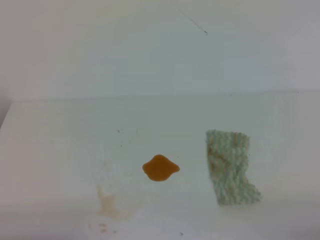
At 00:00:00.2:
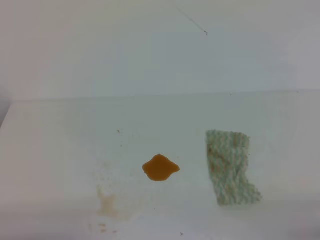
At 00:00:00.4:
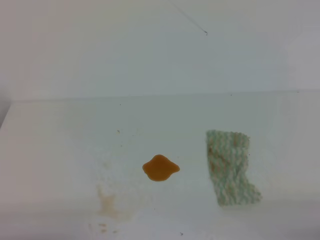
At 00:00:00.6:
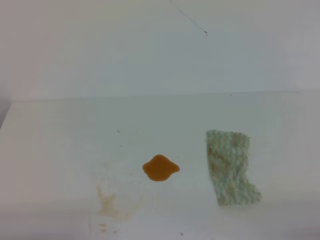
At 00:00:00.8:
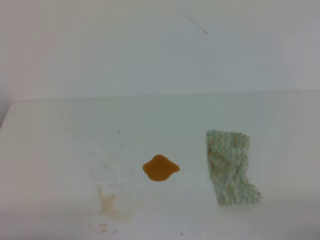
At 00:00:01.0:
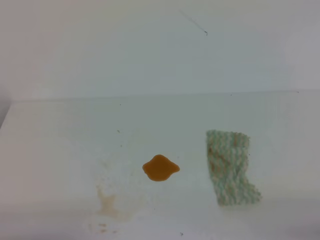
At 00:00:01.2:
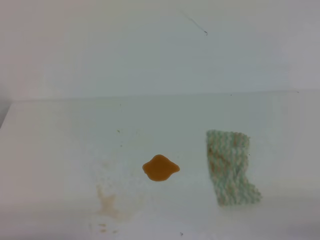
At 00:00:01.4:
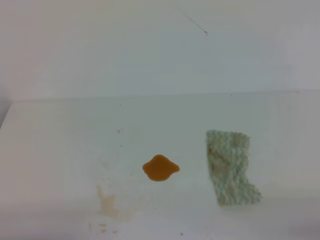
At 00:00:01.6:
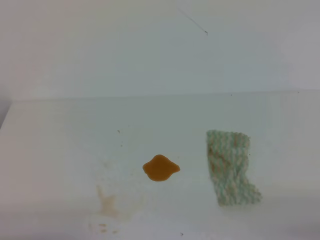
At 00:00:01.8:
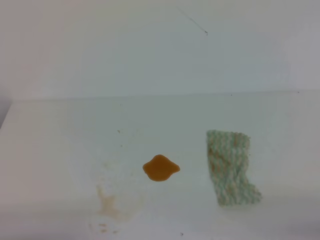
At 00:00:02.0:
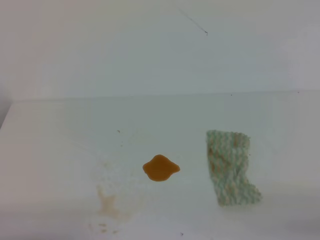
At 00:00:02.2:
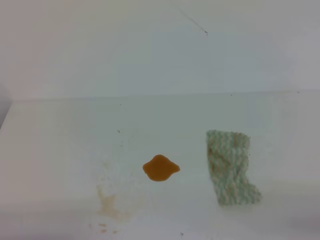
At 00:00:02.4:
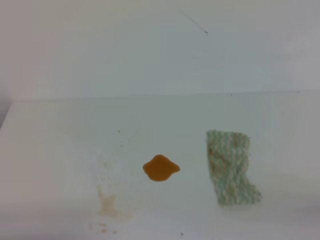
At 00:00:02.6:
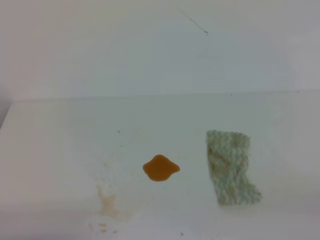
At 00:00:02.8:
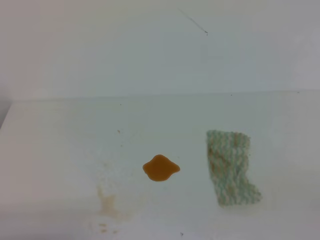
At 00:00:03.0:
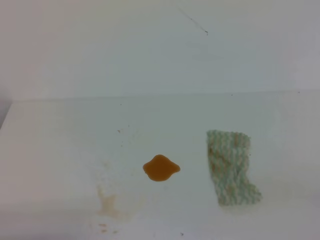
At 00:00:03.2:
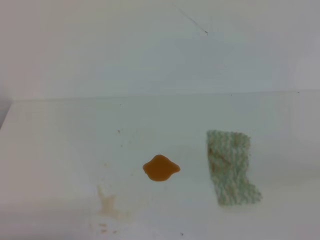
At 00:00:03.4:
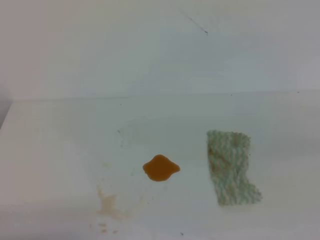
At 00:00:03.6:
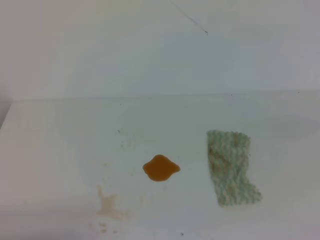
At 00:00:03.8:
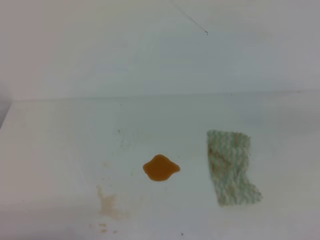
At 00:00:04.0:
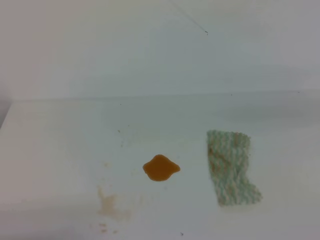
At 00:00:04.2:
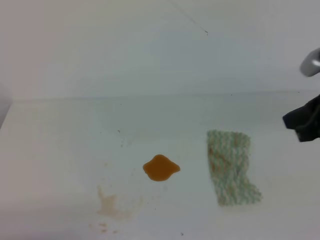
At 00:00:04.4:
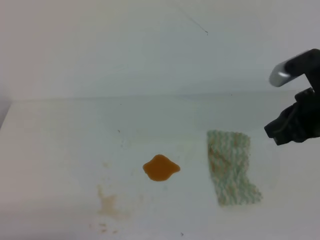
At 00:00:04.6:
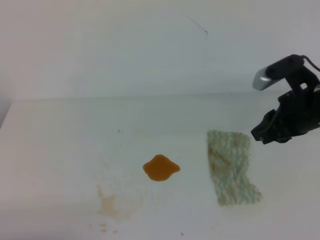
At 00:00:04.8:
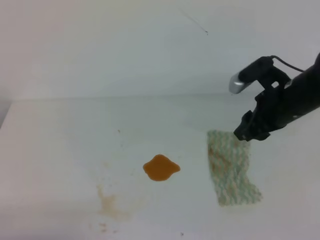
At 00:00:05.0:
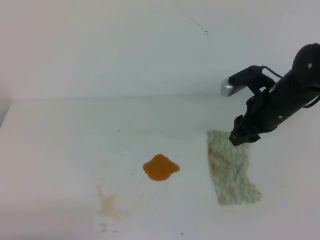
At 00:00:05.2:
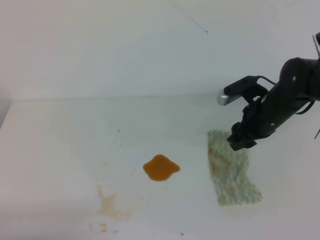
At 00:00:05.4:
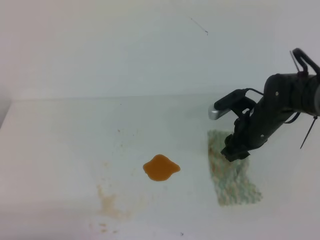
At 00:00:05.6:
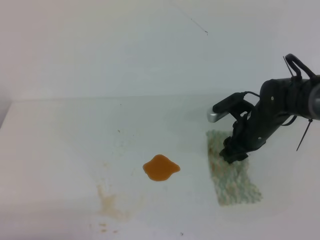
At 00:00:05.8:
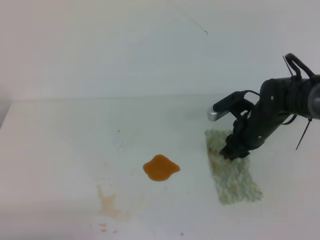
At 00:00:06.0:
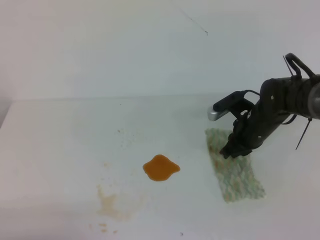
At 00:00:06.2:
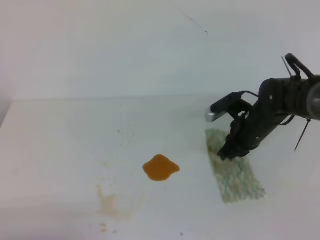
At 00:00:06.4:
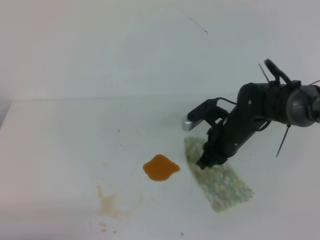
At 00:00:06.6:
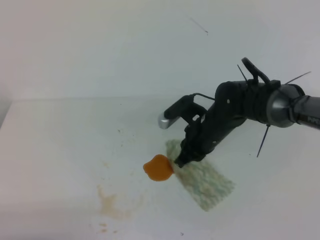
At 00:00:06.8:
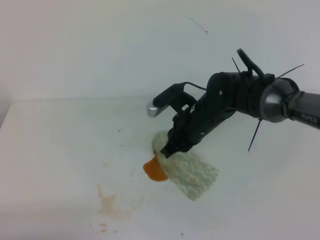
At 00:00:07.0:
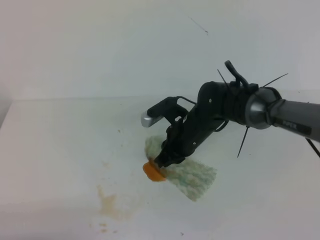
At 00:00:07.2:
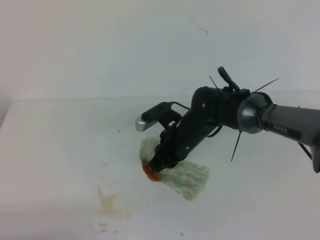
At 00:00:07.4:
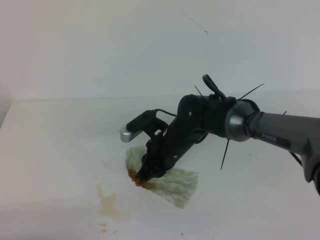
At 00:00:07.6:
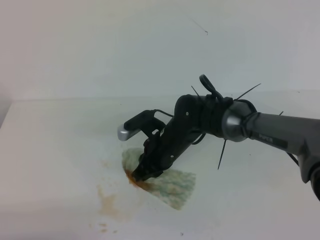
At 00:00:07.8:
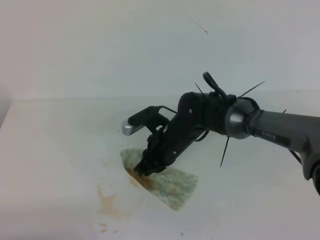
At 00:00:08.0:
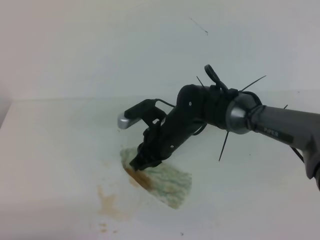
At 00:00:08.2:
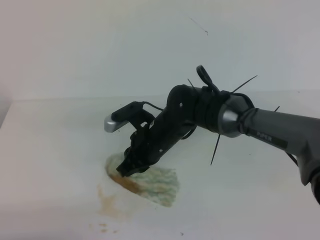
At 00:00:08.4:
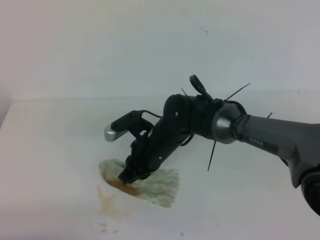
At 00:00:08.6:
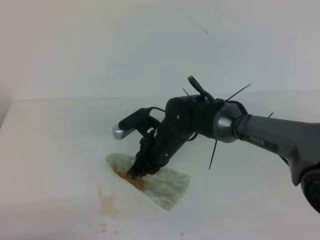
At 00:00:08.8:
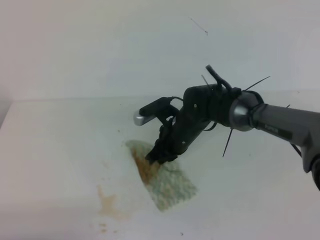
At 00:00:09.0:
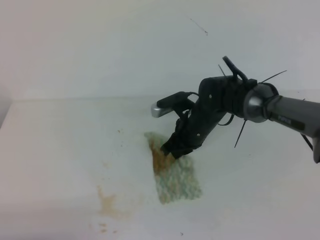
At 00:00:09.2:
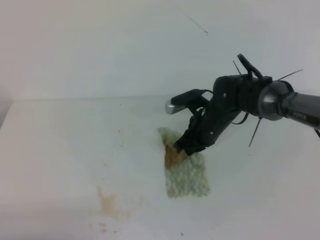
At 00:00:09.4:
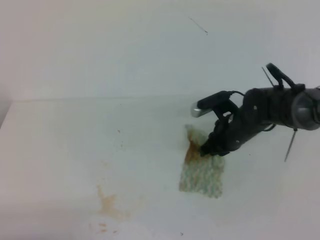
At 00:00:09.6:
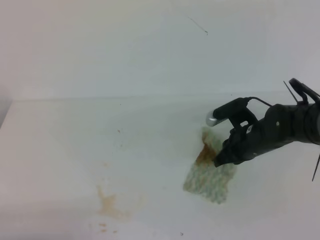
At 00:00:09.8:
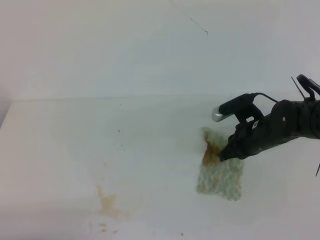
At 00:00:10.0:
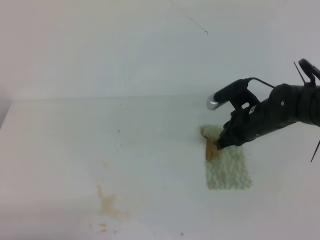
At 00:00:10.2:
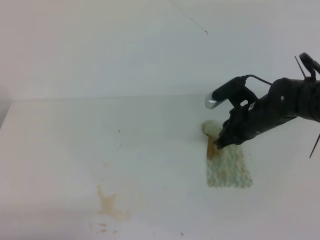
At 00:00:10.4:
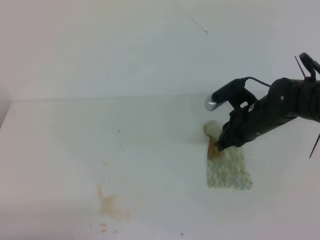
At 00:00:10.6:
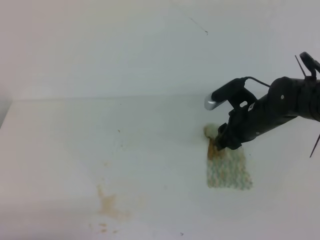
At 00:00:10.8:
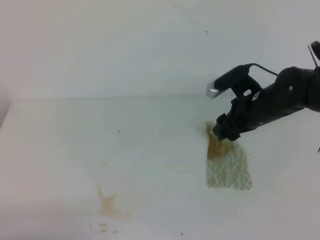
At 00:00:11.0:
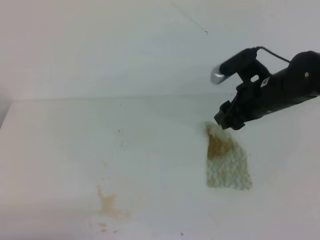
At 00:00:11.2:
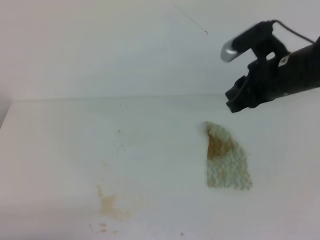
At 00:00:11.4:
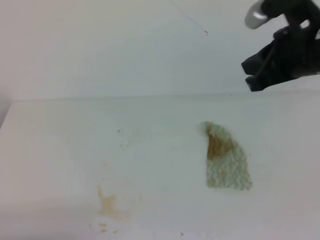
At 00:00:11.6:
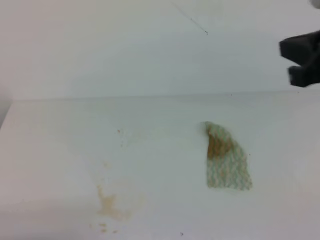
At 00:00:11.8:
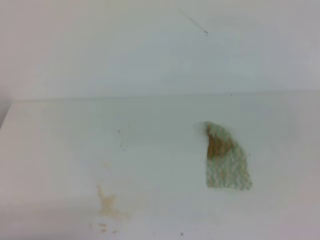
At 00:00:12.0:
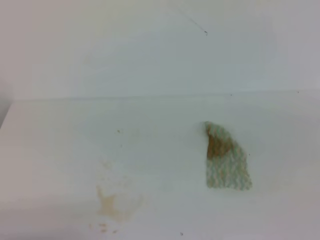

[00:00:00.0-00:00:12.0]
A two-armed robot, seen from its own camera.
00:00:00.0 to 00:00:01.6: Both grippers stay about where they are.
00:00:03.0 to 00:00:04.4: The right gripper travels forward and to the left by some 25 cm.
00:00:04.4 to 00:00:06.0: The right gripper shifts approximately 20 cm downward, forward and to the left, and opens, then closes once more.
00:00:06.0 to 00:00:07.6: The right gripper is displaced to the left by roughly 15 cm.
00:00:07.6 to 00:00:09.0: The right gripper goes approximately 5 cm to the right.
00:00:09.0 to 00:00:10.4: The right gripper is displaced to the right by some 10 cm.
00:00:10.4 to 00:00:12.0: The right gripper heads backward, upward and to the right, covering about 35 cm, and opens, then closes once more.

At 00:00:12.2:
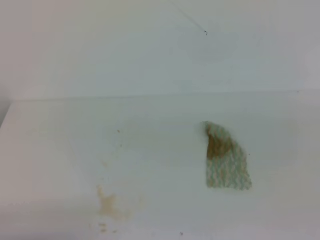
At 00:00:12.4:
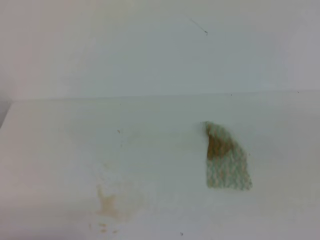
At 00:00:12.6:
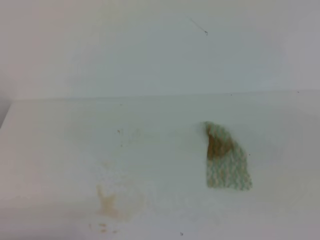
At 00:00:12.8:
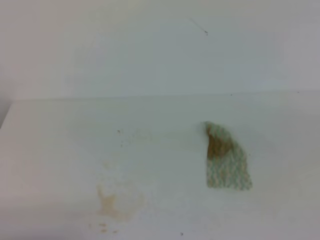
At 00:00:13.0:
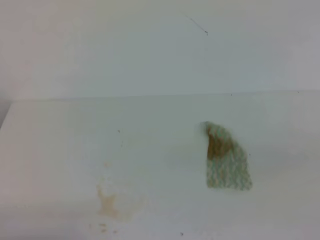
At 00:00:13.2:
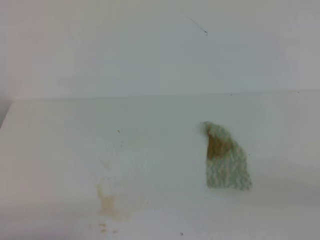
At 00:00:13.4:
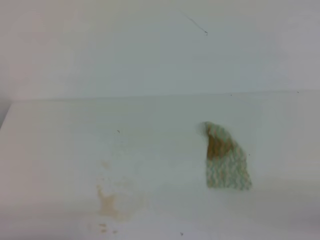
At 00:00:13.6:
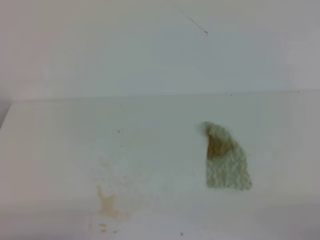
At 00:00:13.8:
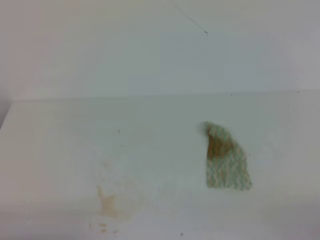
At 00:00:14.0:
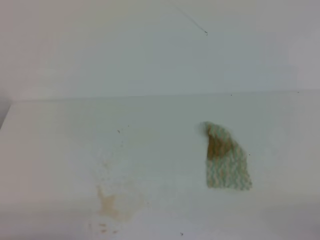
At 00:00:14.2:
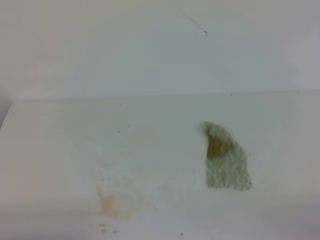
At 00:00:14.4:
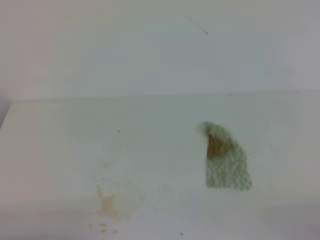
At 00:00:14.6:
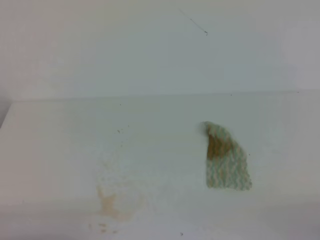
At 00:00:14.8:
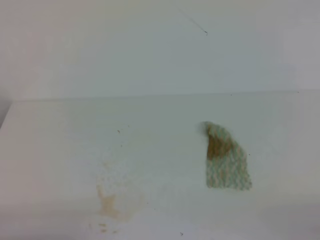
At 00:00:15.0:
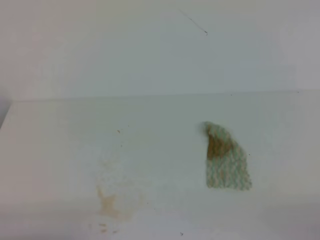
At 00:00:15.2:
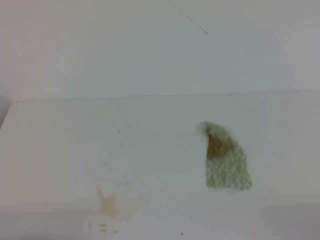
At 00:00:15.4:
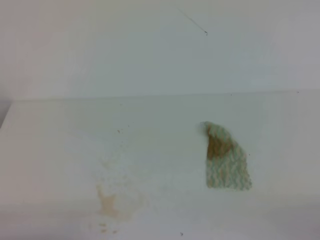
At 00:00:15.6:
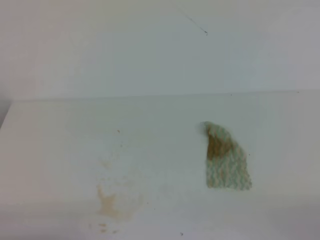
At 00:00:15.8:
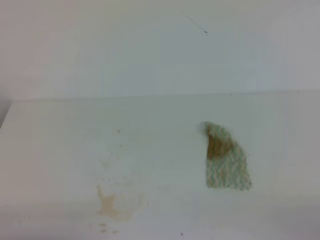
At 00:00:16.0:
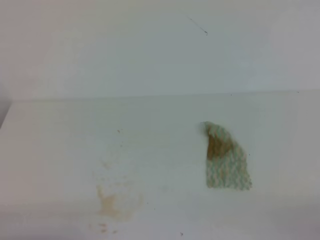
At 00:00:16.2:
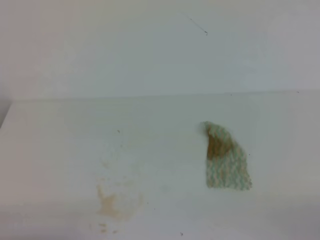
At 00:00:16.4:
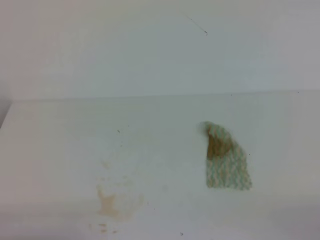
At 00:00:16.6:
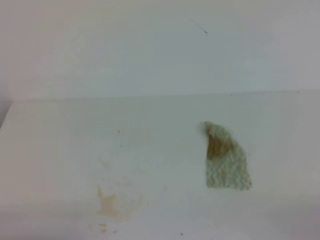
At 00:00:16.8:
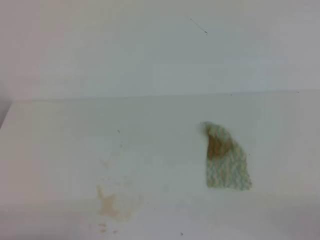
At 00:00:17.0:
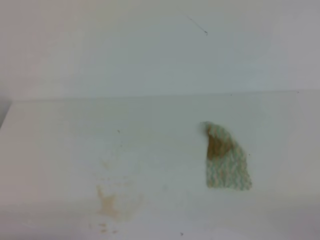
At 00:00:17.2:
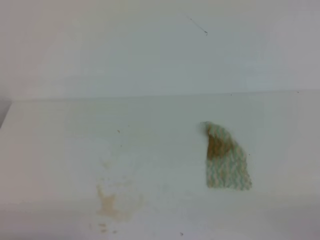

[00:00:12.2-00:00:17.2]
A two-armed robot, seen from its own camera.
00:00:13.8 to 00:00:17.2: Neither gripper changes place.
